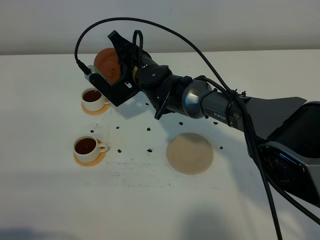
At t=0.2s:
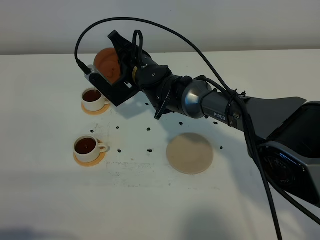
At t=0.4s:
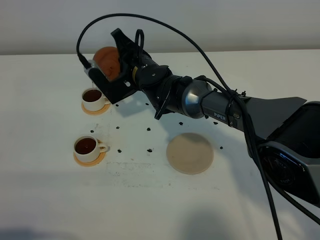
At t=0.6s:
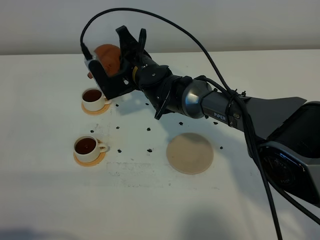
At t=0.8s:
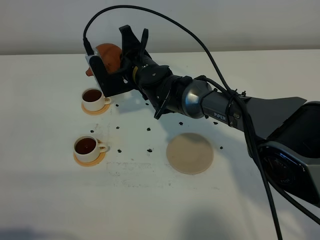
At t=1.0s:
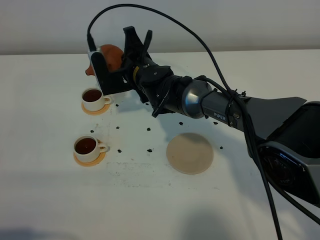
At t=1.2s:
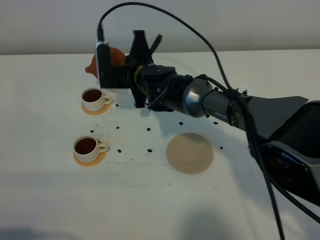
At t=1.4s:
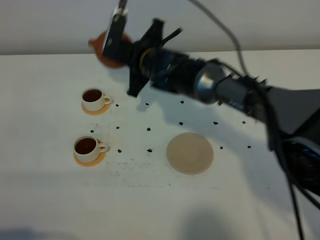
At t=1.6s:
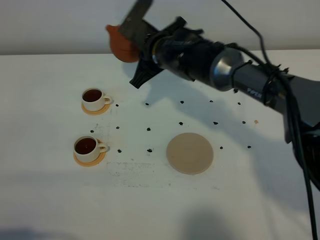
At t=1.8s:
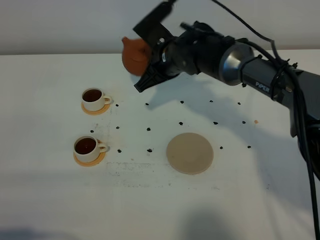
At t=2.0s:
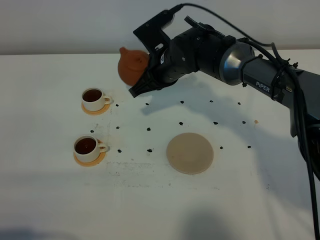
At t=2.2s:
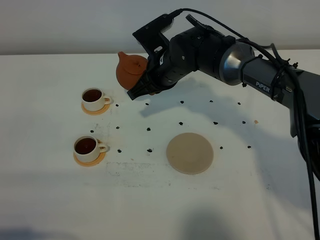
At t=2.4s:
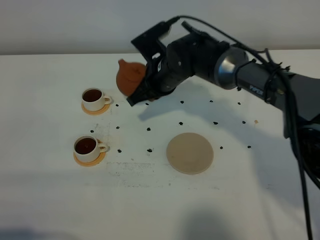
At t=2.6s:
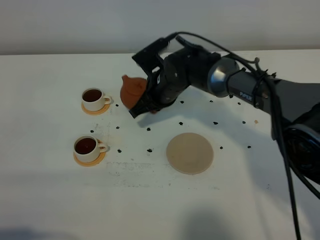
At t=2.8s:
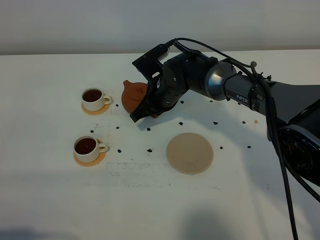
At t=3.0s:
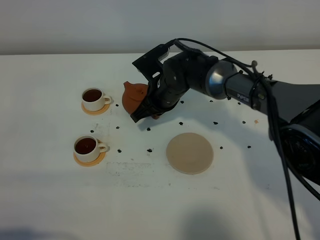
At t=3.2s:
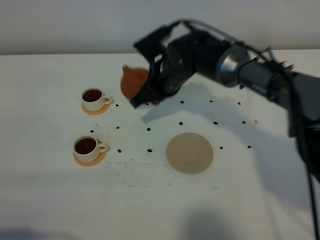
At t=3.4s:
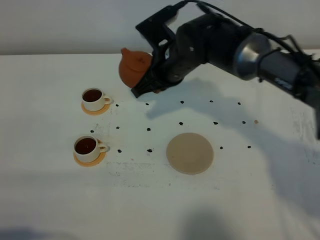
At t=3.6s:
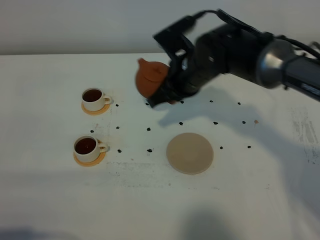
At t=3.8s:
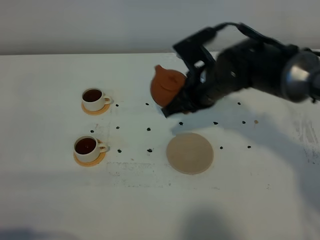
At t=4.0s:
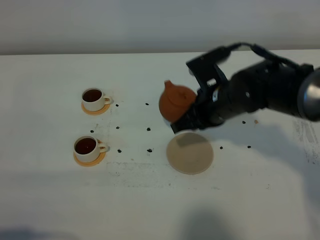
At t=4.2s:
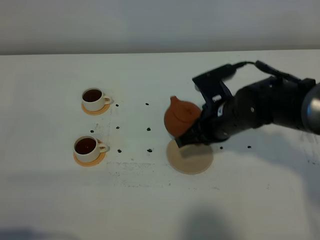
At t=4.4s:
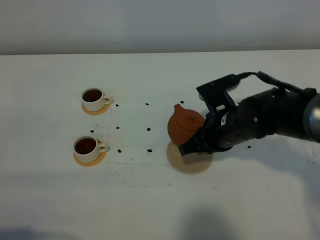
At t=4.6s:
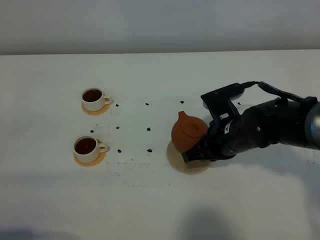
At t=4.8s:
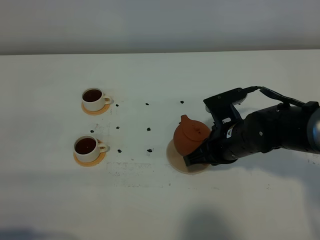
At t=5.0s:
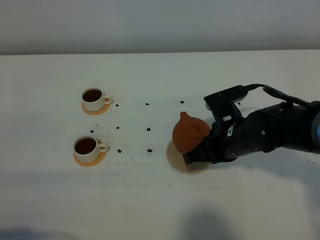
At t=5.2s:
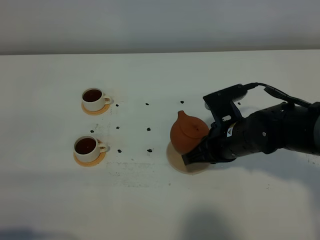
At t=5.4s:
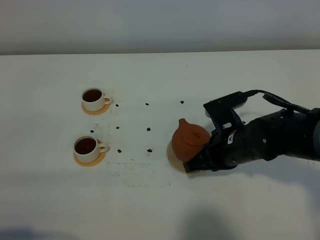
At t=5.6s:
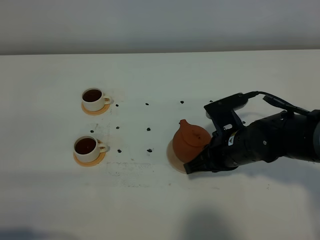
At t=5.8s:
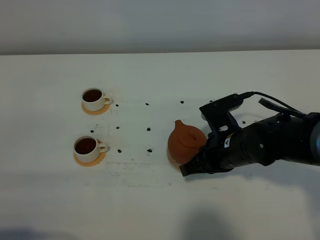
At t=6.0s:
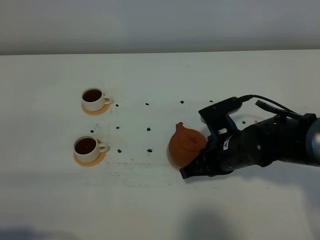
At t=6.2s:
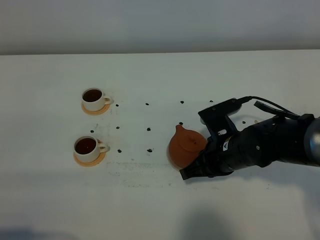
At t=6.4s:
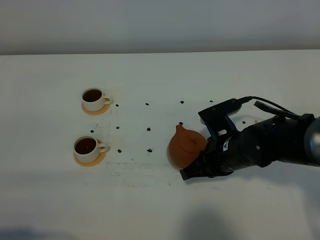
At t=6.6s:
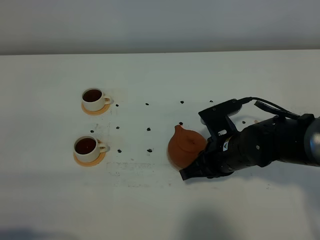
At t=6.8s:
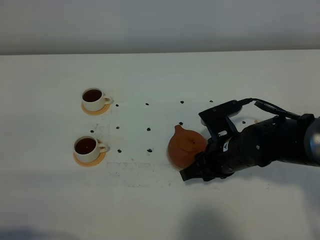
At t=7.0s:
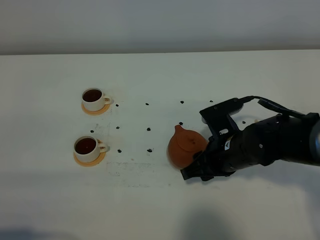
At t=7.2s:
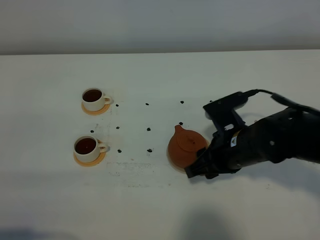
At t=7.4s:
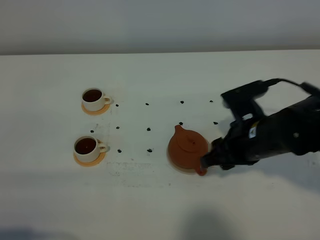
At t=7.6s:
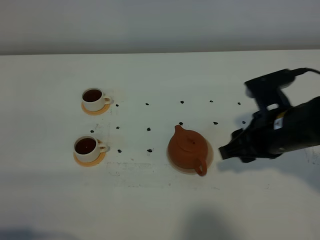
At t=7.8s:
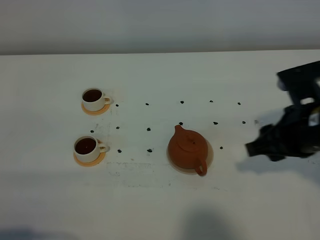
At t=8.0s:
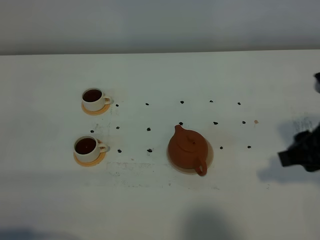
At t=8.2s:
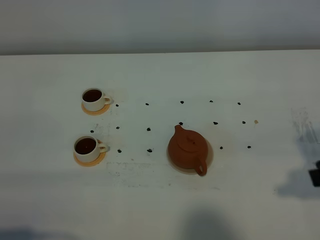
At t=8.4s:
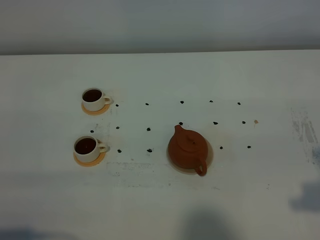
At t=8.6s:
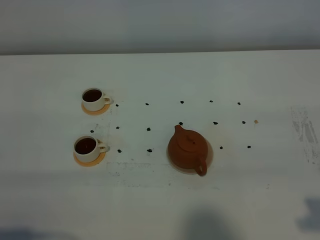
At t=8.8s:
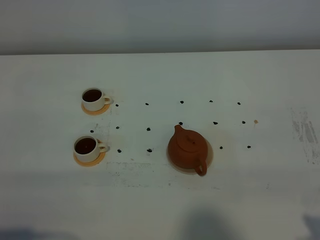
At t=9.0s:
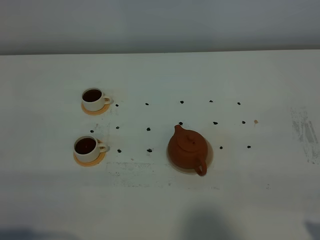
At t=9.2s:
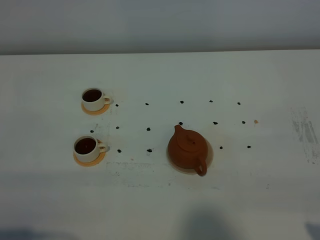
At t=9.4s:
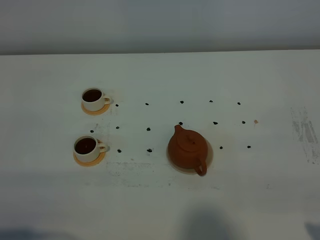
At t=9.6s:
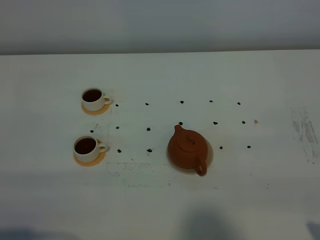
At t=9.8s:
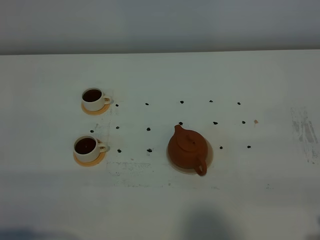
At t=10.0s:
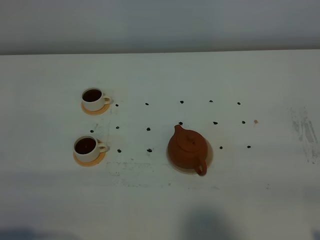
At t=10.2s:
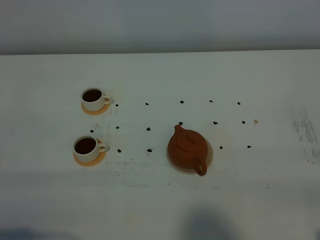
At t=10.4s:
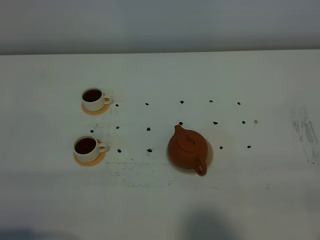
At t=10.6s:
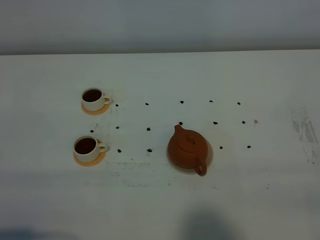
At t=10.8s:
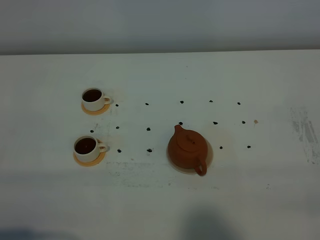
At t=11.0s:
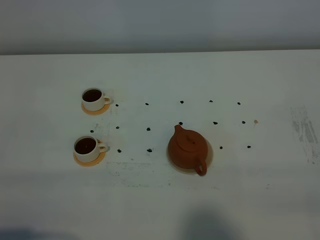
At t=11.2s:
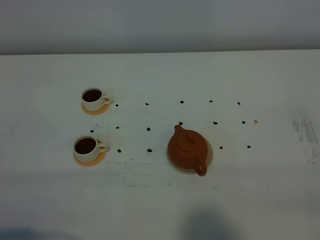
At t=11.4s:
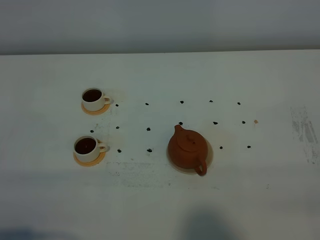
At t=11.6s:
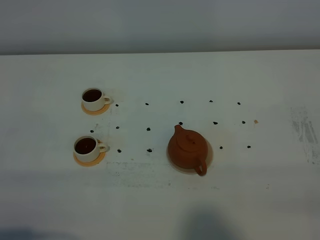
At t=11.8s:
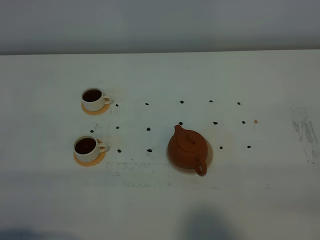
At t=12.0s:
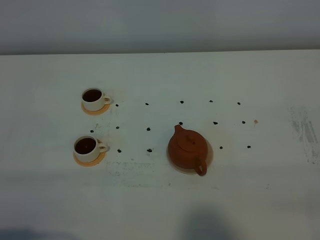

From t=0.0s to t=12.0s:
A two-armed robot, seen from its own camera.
Task of the whole recording: grasp the brown teapot and pour the tea into the two white teacups one by one, put the brown teapot back in its original place.
From t=0.0s to t=1.6s: The right gripper changes place by some 5 cm.
From t=1.6s to t=3.0s: The right gripper goes some 5 cm downward.
From t=3.0s to t=4.4s: The right gripper is displaced to the right and backward by some 15 cm.
From t=4.4s to t=6.0s: The grippers make only small movements.
From t=6.0s to t=7.6s: The right gripper moves upward and to the right, some 10 cm, and opens its fingers.
From t=7.6s to t=9.0s: The right gripper goes approximately 20 cm backward and to the right.
